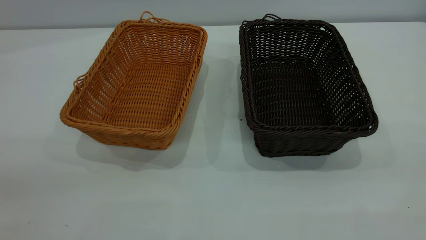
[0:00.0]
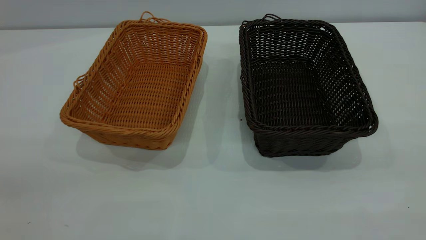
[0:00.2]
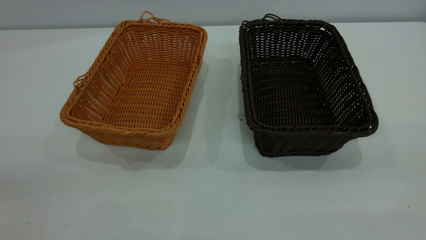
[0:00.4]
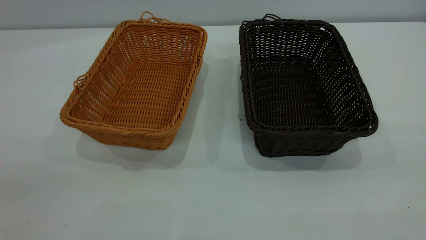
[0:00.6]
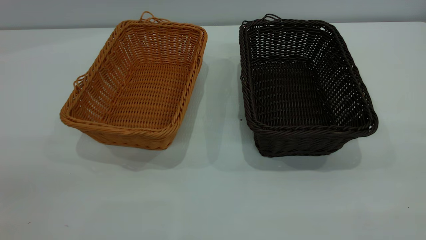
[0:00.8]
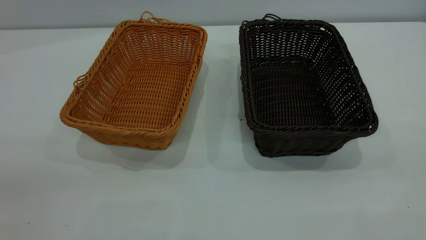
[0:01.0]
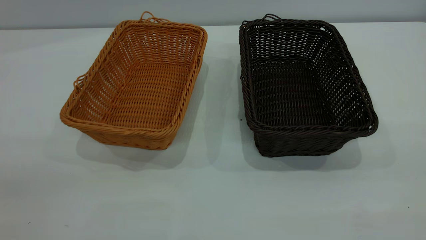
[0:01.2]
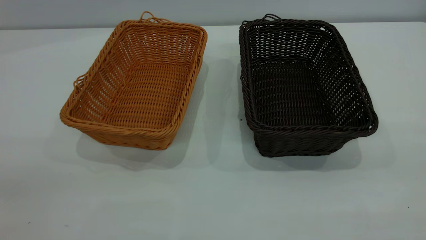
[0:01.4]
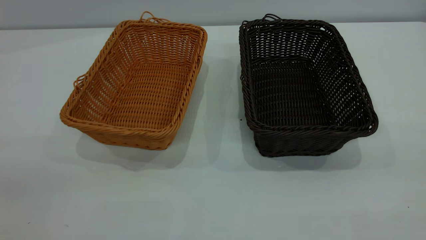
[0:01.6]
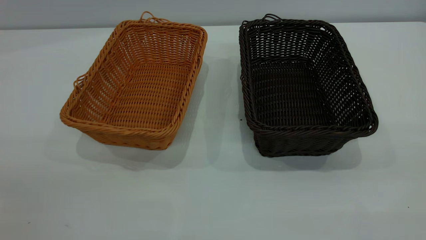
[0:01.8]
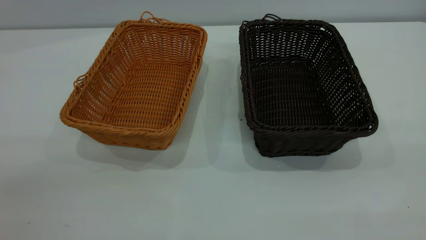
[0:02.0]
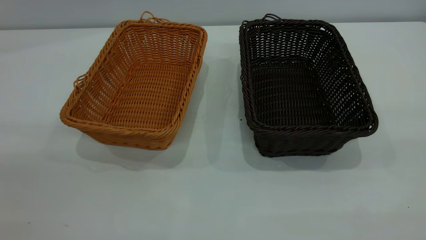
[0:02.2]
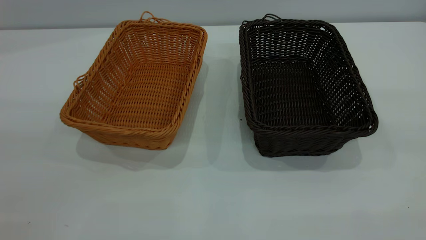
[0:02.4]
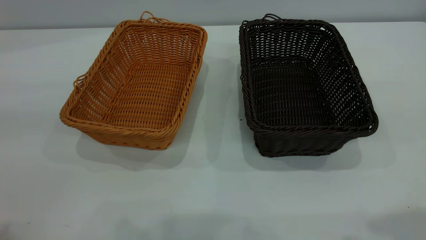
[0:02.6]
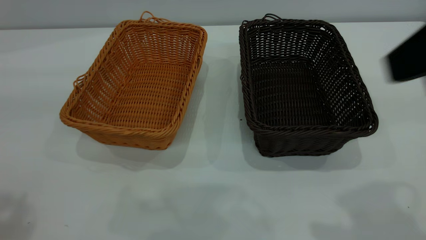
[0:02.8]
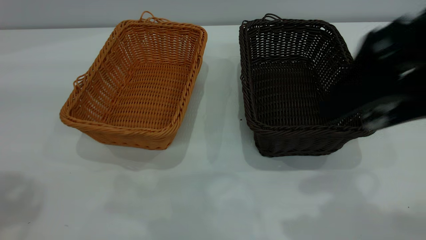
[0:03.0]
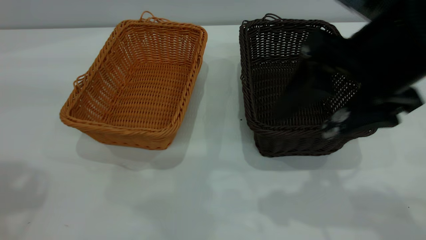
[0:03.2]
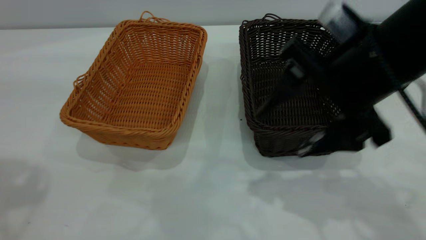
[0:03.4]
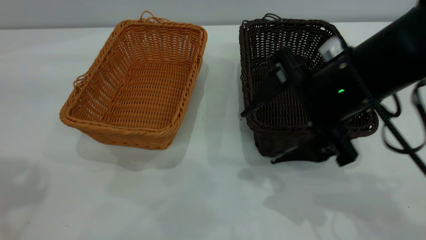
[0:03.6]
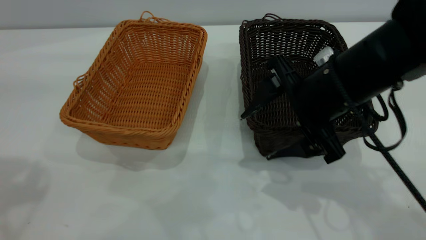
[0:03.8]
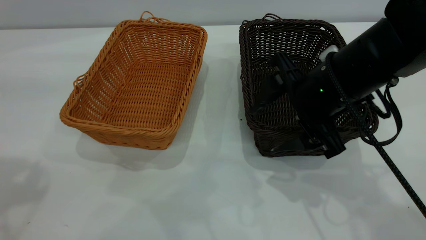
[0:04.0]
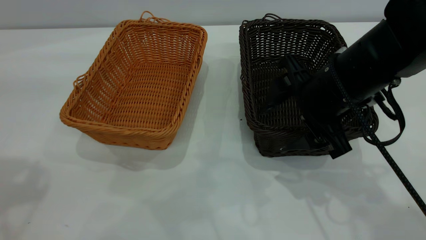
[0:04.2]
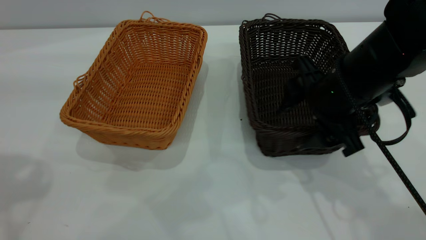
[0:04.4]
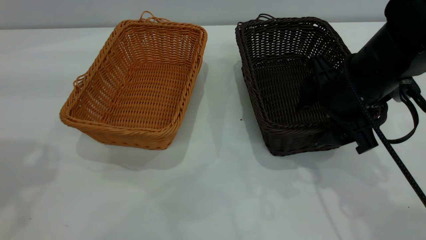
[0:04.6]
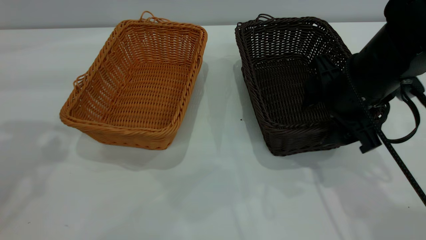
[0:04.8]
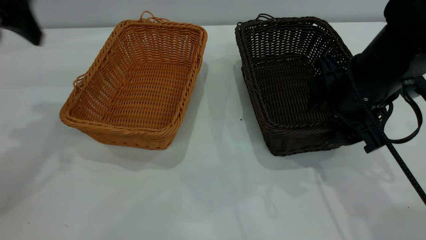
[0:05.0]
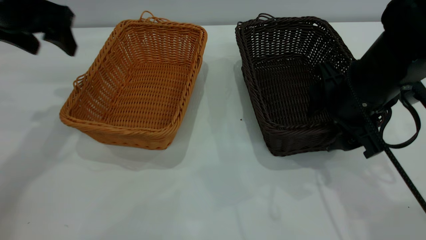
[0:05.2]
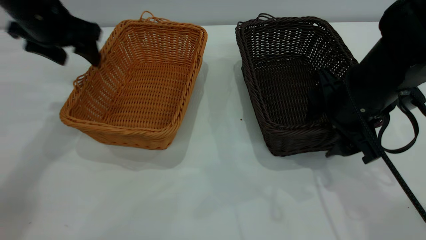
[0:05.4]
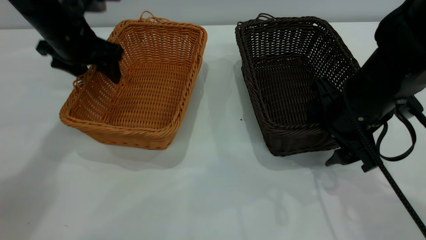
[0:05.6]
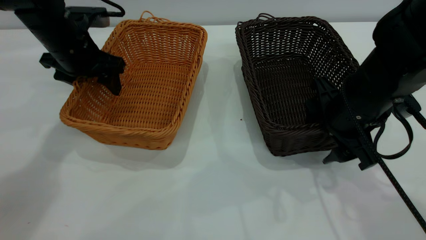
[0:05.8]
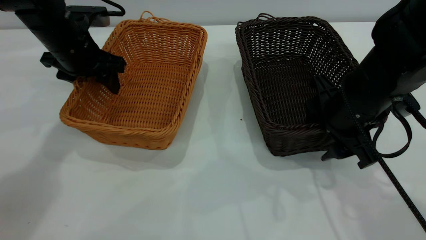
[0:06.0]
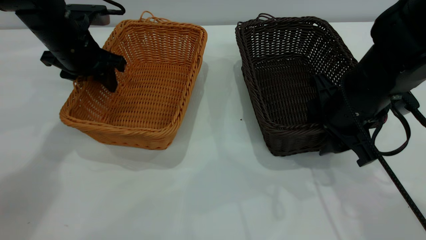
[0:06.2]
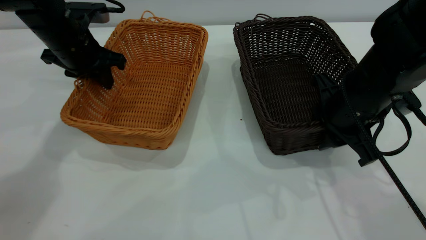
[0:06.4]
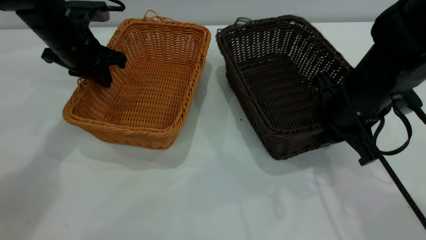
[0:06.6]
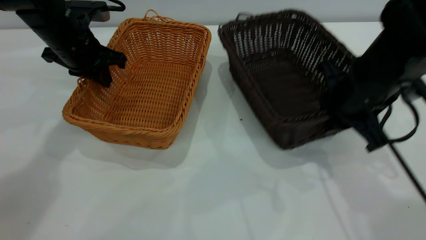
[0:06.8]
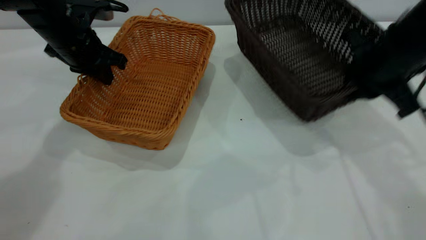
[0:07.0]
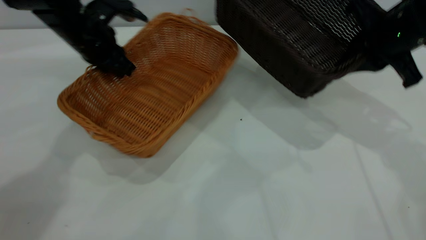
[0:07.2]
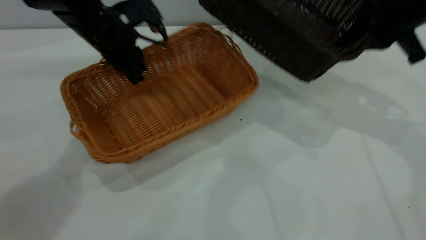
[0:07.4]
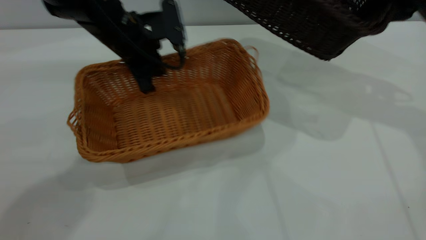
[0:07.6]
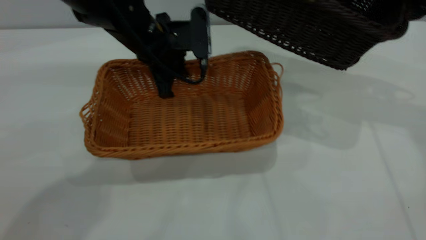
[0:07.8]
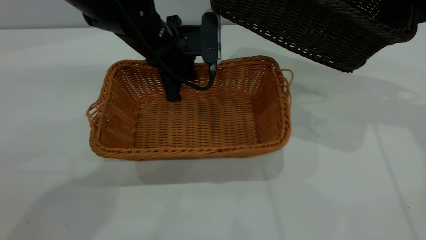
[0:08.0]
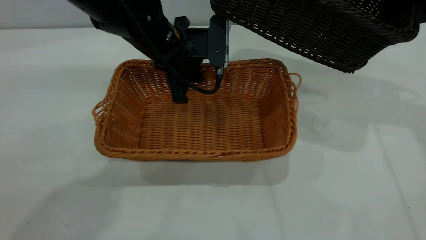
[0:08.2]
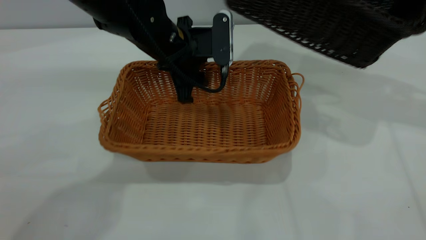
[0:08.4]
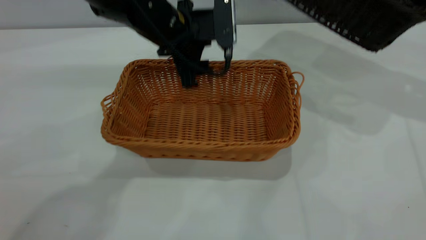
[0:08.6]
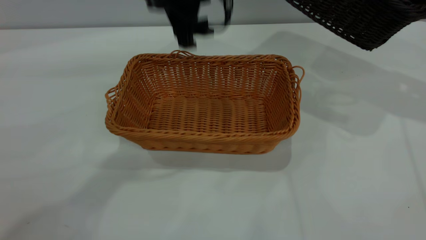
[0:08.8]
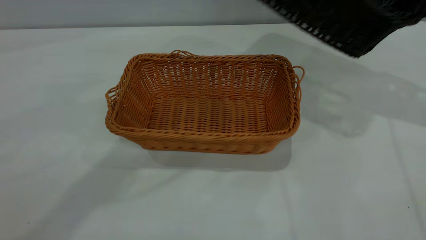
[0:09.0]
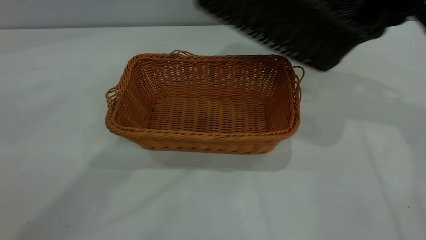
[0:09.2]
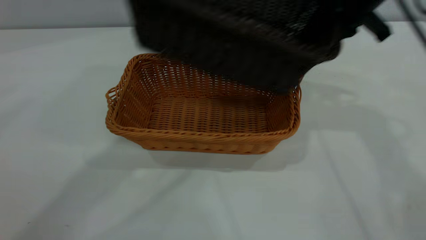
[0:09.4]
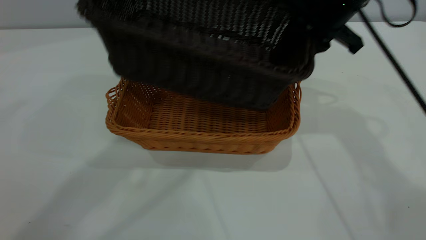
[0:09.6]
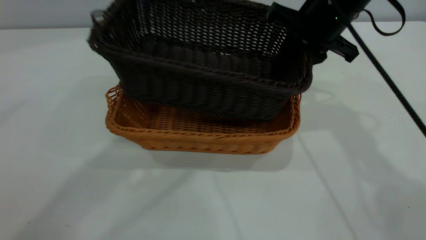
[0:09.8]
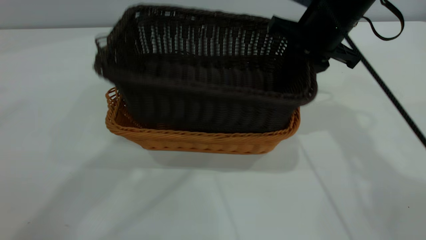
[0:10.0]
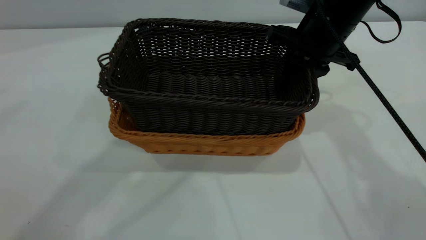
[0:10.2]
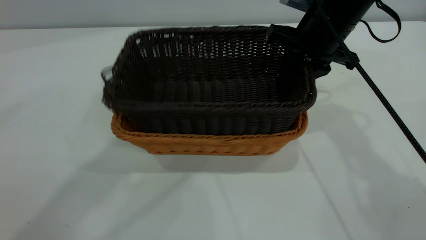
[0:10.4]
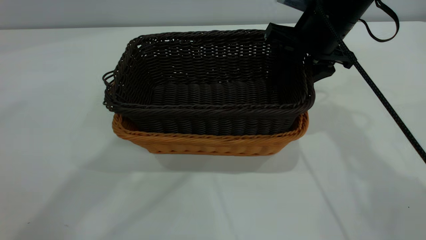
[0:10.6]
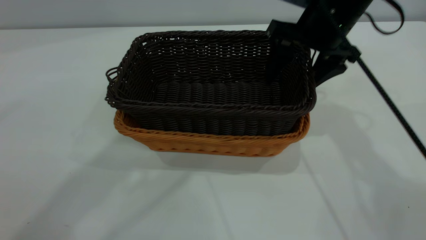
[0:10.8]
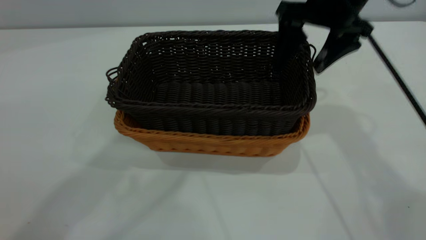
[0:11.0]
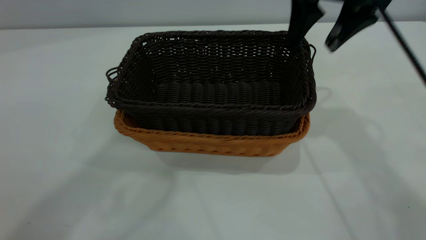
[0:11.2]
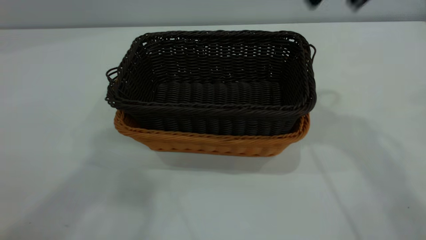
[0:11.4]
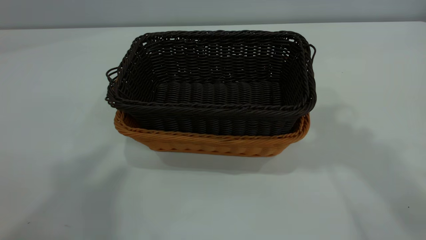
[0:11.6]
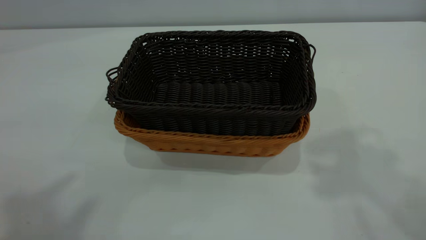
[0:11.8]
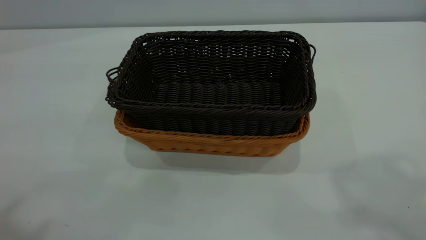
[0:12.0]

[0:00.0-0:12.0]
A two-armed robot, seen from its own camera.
Task of the whole recording: the left gripper grasp the brown basket and place it in the center of the table, the right gripper grasp the black basket and place it inside the brown one.
Step, 0:00.0 to 0:06.8: Pick up the light basket with the right gripper.
Step, 0:07.0 to 0:08.6: Place the light-colored basket in the center.
Step, 0:09.0 to 0:11.2: Place the dark basket on top of the light basket.
0:00.0 to 0:01.6: Both grippers stay about where they are.
0:01.6 to 0:03.0: The right gripper is displaced forward, to the left and downward by roughly 25 cm.
0:03.0 to 0:04.4: The right gripper travels downward and forward by about 15 cm.
0:04.4 to 0:06.0: The left gripper moves downward and forward, about 30 cm.
0:06.0 to 0:07.6: The left gripper travels to the right by about 10 cm, and closes. The right gripper goes roughly 20 cm upward, forward and to the right, and closes its fingers.
0:07.6 to 0:09.0: The left gripper travels upward by some 20 cm, and opens.
0:09.0 to 0:10.4: The left gripper travels upward and backward by about 15 cm; the right gripper is displaced to the left and downward by about 20 cm.
0:10.4 to 0:12.0: The left gripper shifts roughly 25 cm backward, to the left and upward; the right gripper moves upward and backward, about 40 cm, and opens its fingers.

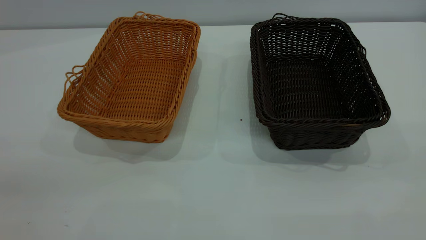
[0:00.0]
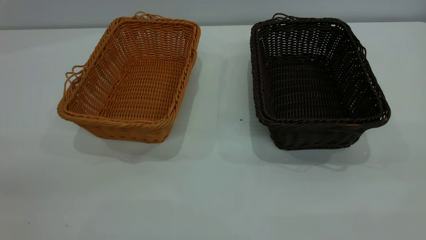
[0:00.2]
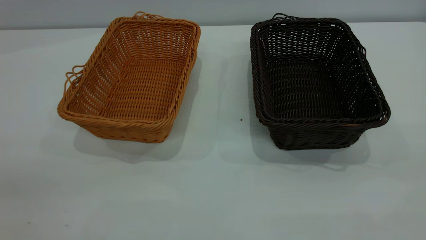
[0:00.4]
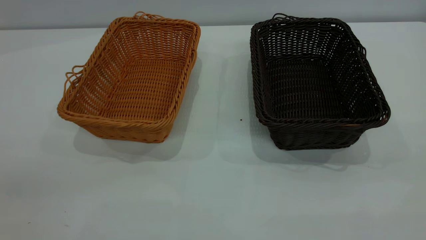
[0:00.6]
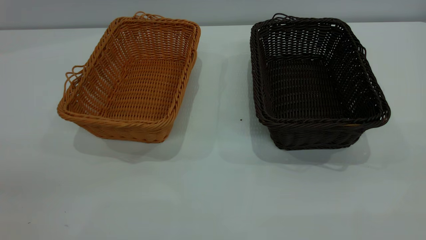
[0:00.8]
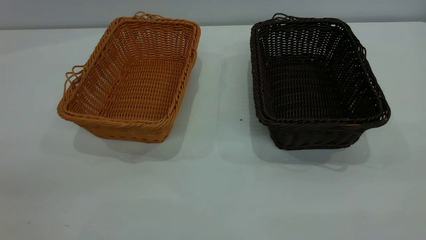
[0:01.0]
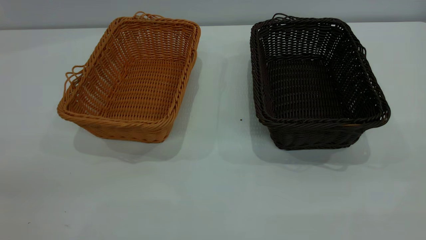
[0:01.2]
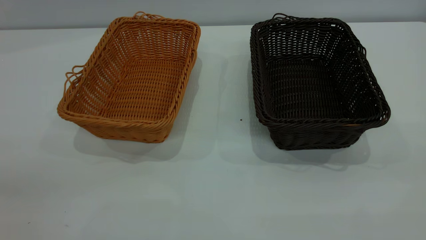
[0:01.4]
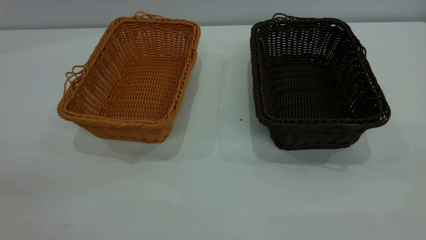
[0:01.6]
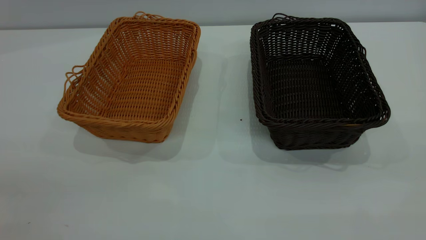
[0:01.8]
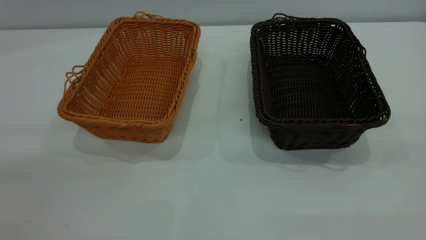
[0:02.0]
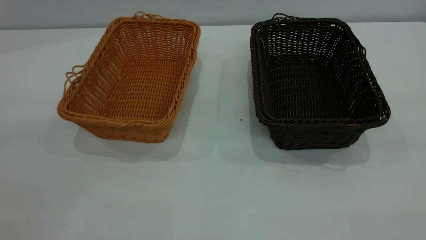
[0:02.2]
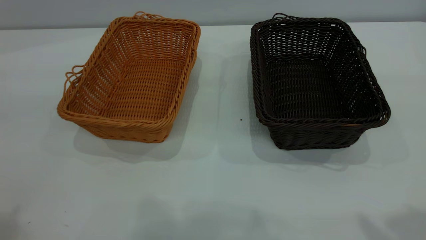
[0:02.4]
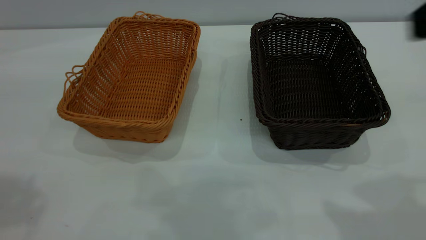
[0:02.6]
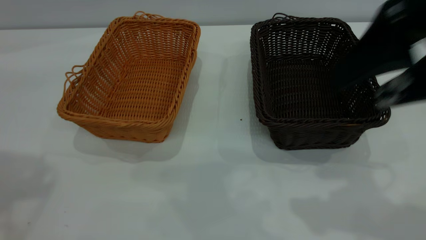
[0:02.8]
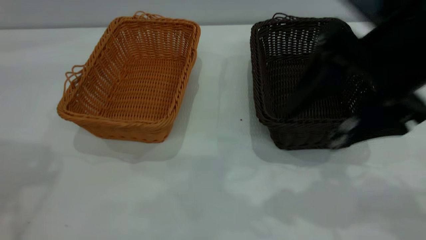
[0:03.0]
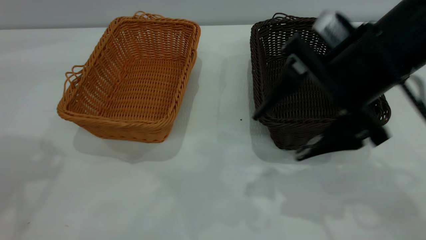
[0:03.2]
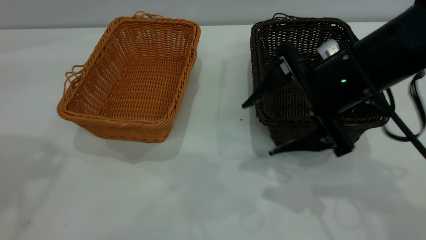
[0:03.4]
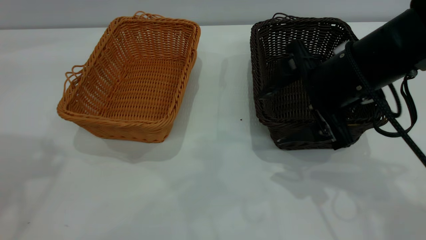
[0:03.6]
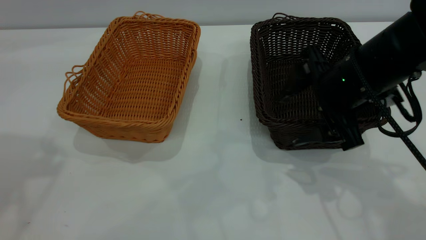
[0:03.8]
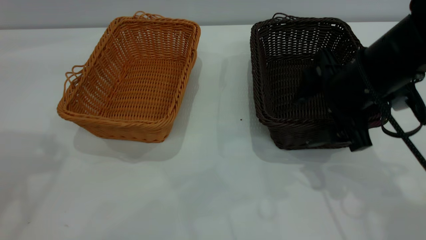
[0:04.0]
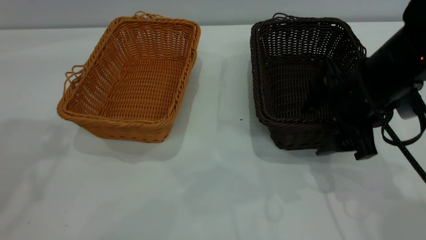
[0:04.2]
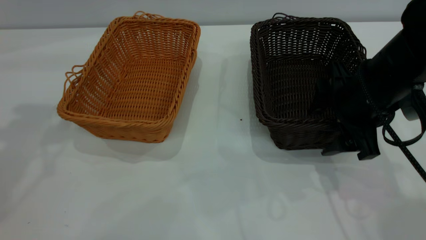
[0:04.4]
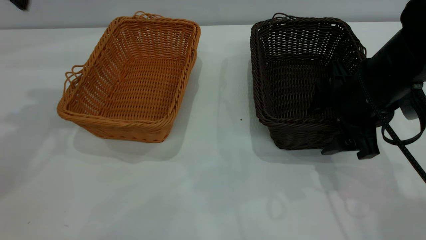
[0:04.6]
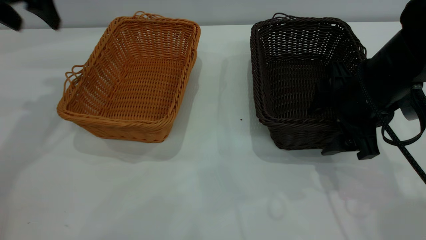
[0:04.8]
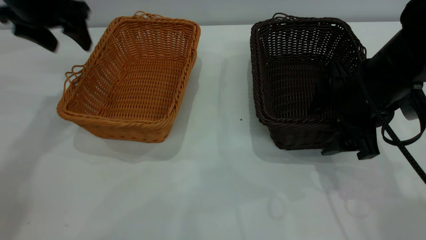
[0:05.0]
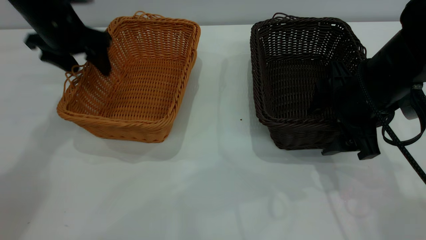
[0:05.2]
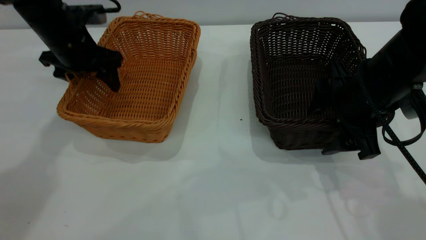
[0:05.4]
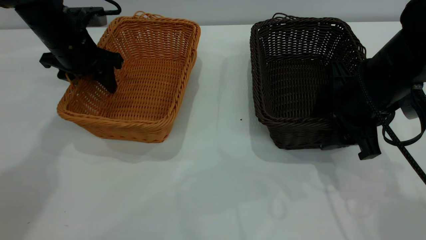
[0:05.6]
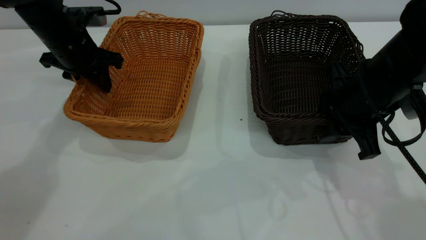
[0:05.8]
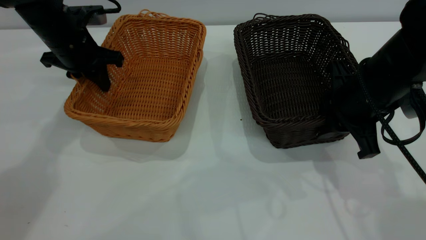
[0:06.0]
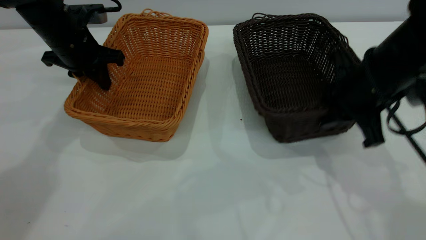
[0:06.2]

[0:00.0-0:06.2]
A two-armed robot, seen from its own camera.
Task of the whole recording: the left gripper grasp the brown basket and place it in the center of the table, the right gripper grasp the black basket and place it inside the brown one.
0:00.0 to 0:01.6: Both grippers stay about where they are.
0:01.6 to 0:03.2: The right gripper is displaced forward, downward and to the left by some 35 cm.
0:03.2 to 0:04.6: The left gripper is displaced forward and downward by approximately 15 cm. Meanwhile the right gripper is displaced downward by approximately 5 cm.
0:04.6 to 0:06.2: The left gripper goes about 15 cm downward, and closes. Meanwhile the right gripper closes.
